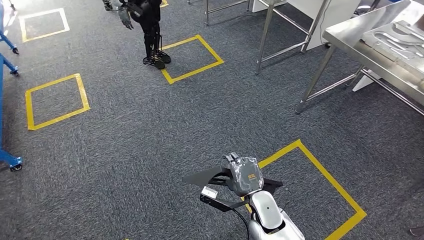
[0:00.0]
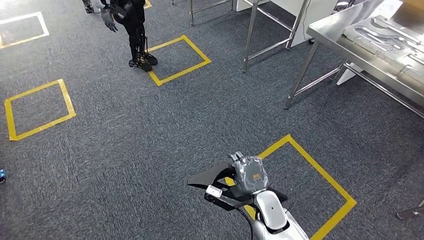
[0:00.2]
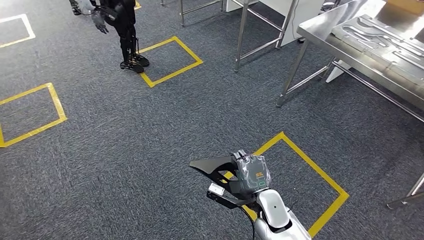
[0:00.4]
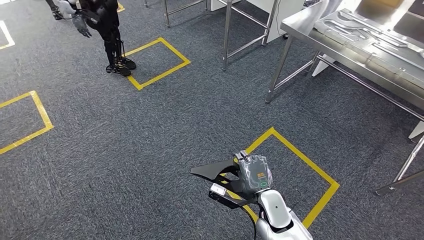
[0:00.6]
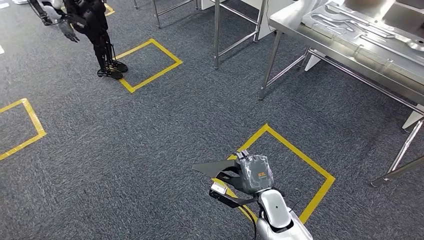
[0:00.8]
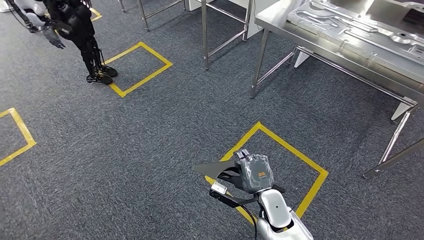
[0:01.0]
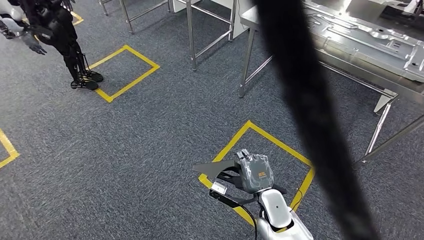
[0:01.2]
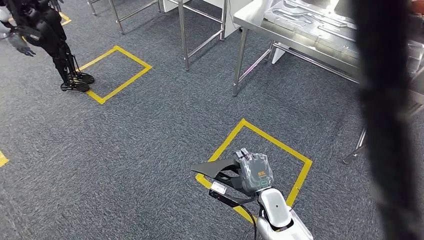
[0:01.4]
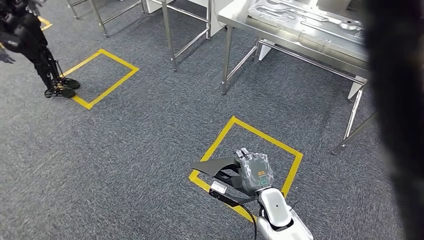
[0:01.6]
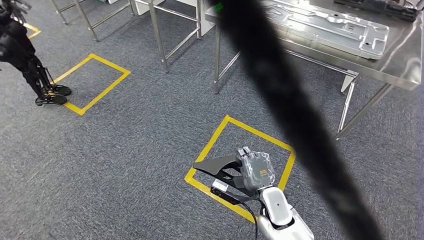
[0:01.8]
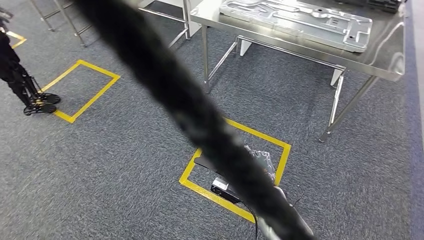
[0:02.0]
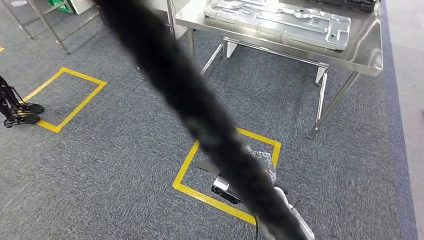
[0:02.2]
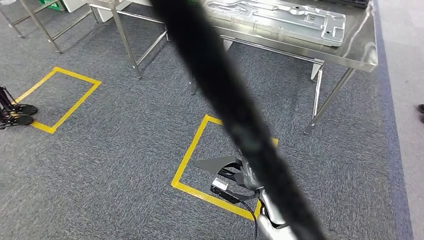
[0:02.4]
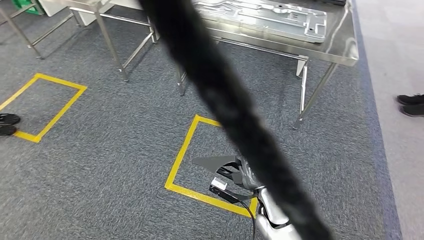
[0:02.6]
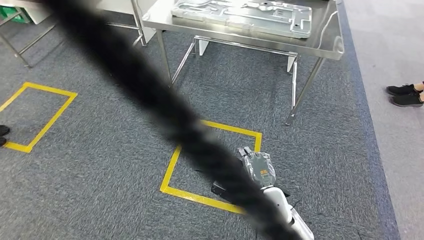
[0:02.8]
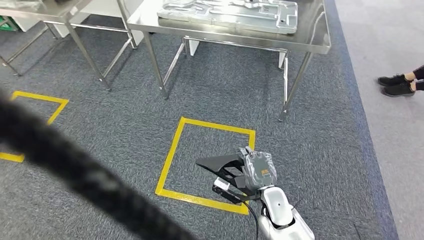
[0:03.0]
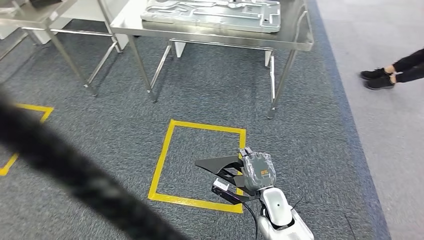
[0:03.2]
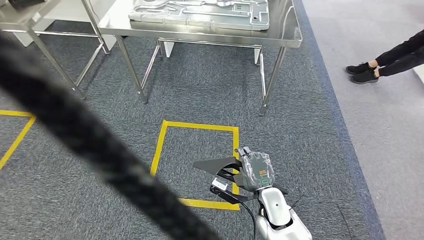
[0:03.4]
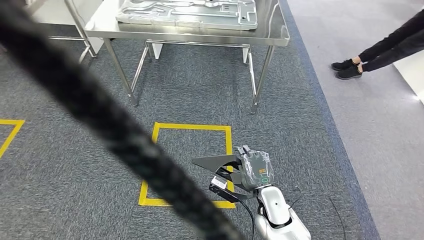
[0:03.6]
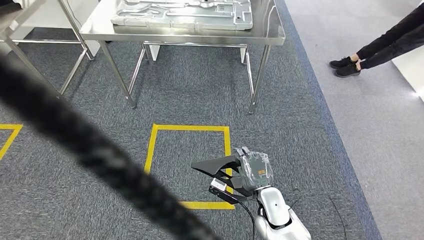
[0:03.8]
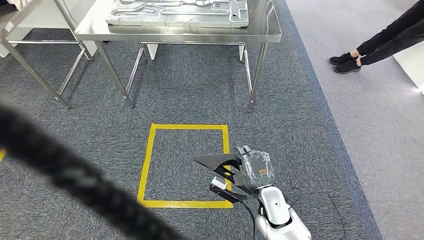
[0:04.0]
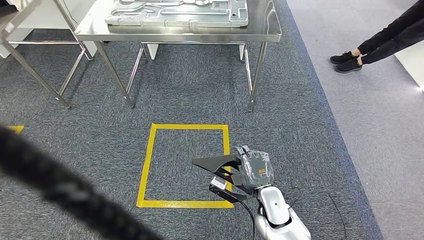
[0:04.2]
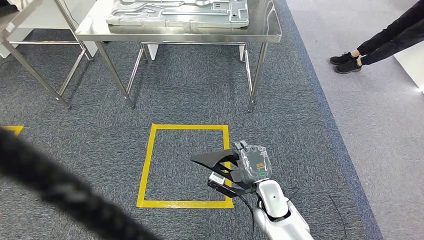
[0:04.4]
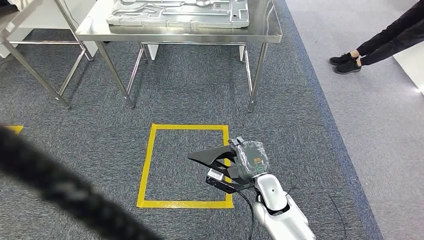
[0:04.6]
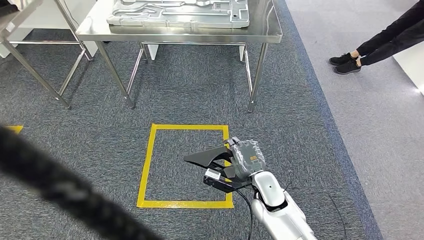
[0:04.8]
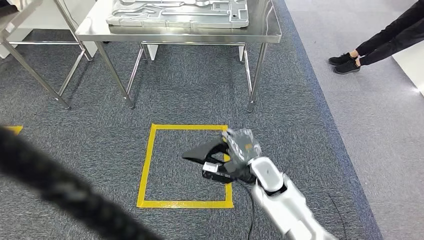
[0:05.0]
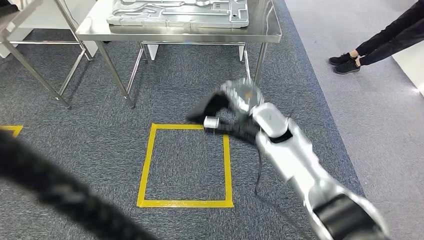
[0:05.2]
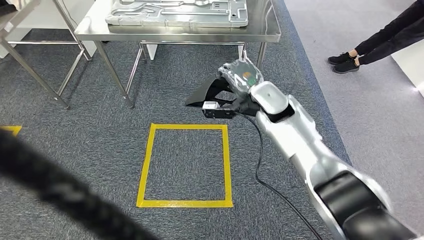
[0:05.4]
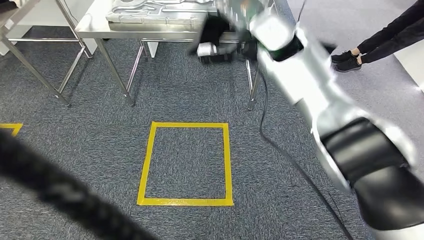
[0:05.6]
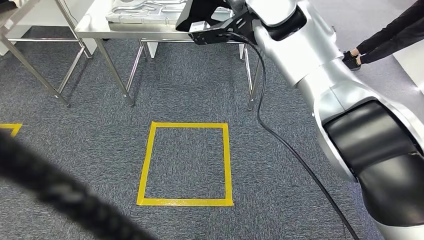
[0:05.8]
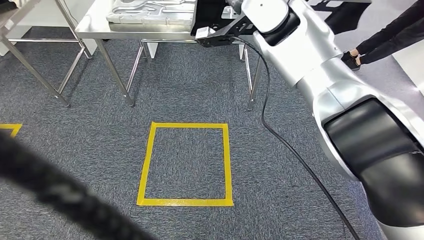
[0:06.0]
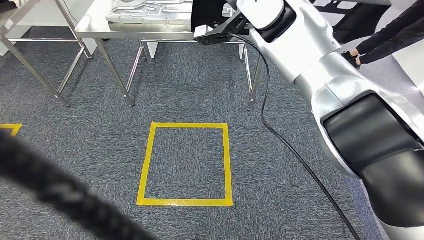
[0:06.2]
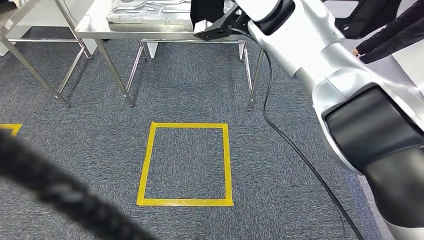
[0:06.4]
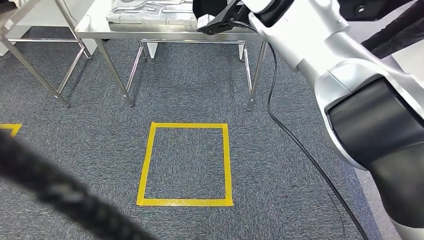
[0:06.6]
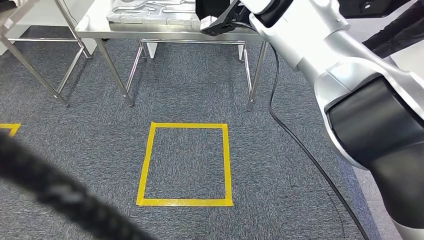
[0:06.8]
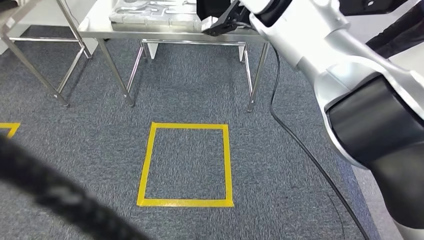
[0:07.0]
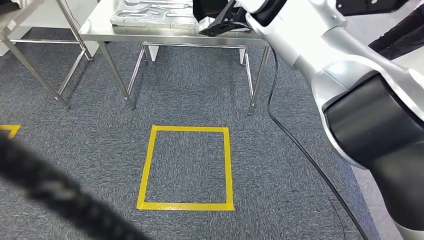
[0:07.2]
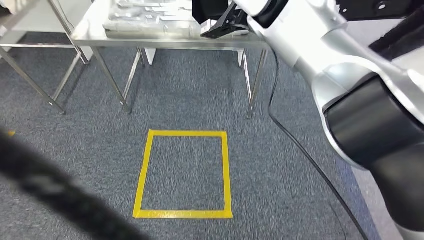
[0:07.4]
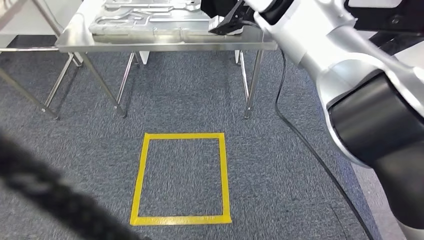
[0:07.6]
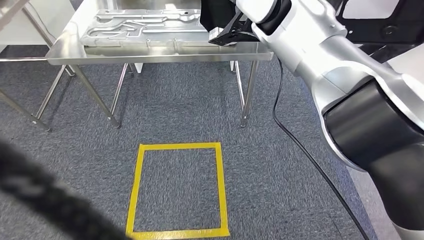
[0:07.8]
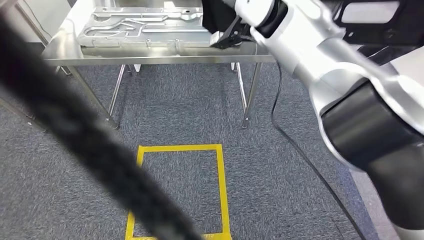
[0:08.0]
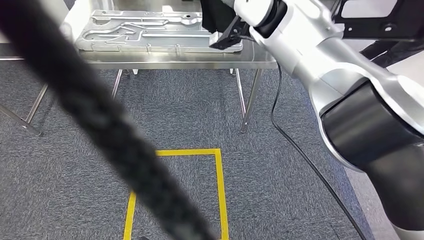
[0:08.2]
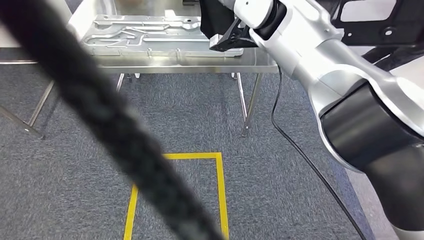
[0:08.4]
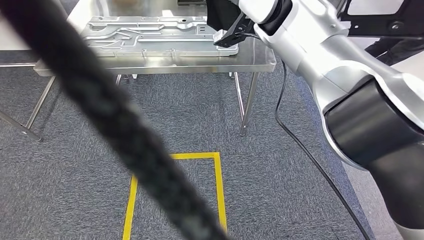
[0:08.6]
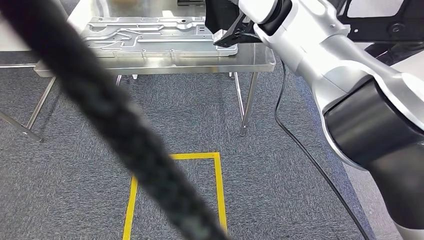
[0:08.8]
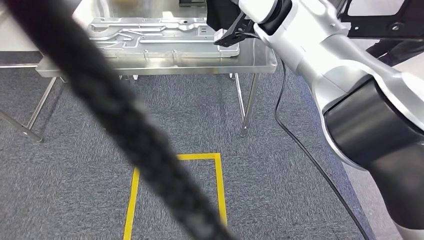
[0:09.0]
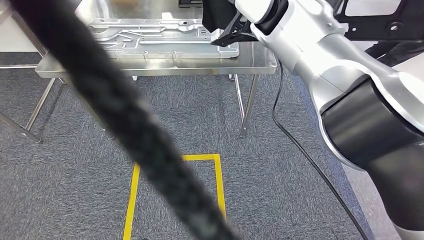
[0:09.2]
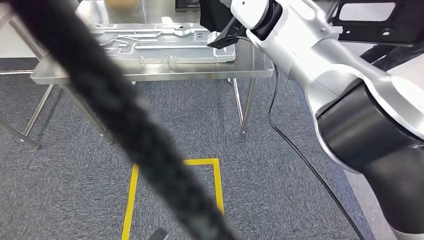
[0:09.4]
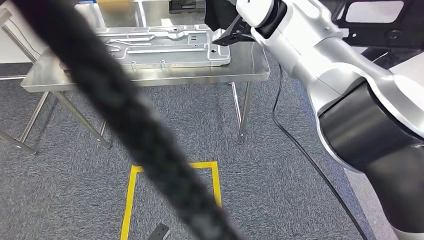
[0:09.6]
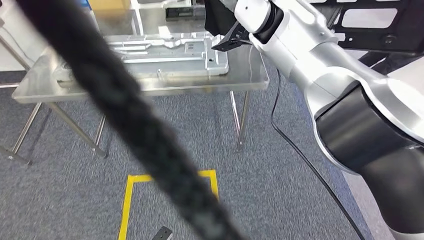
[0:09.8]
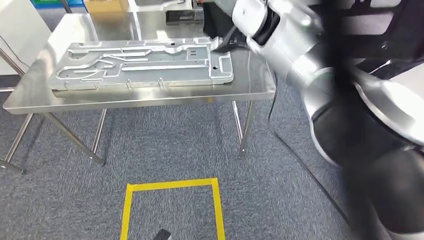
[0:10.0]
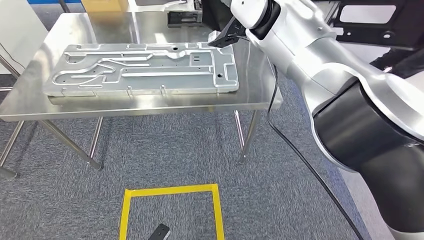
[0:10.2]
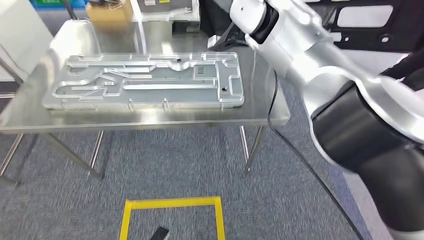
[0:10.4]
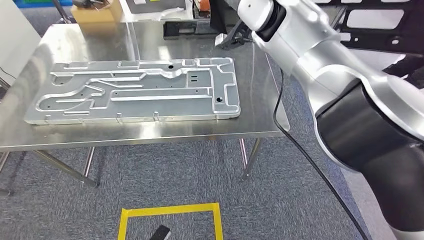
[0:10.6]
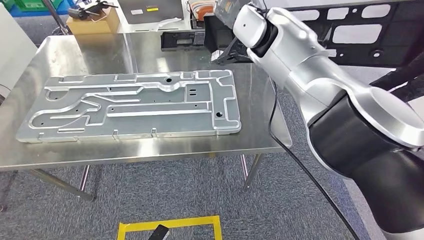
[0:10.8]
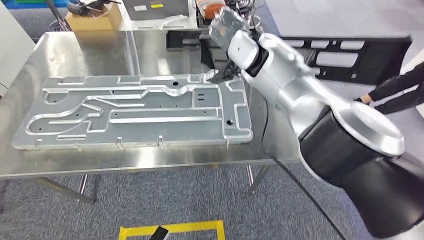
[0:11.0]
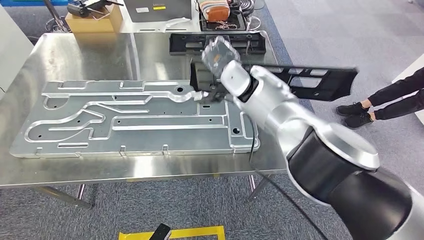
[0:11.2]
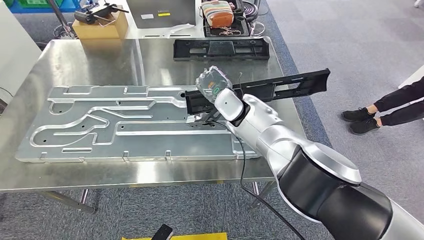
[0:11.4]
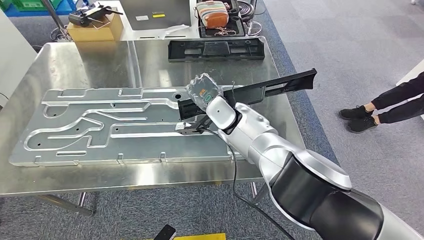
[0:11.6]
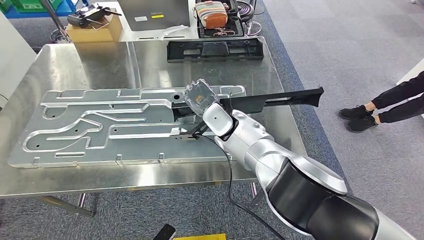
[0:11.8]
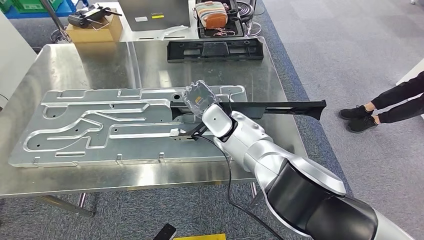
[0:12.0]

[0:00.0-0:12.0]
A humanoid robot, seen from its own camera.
Step, 0:01.0 to 0:11.6: Move the large material to the workbench.

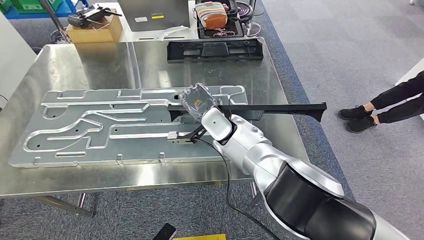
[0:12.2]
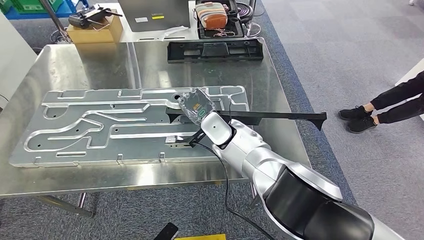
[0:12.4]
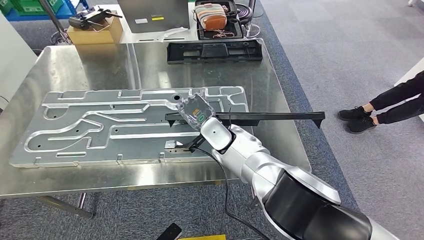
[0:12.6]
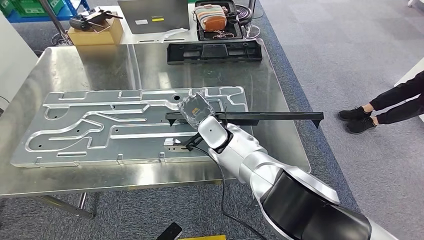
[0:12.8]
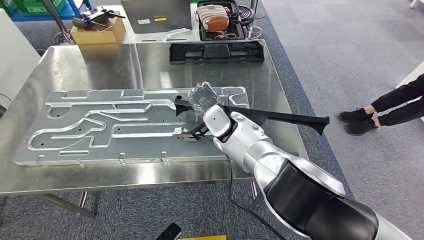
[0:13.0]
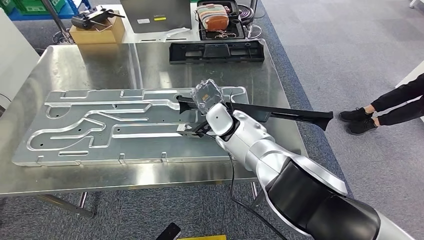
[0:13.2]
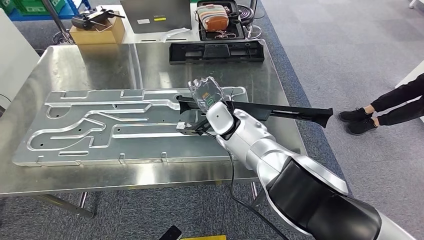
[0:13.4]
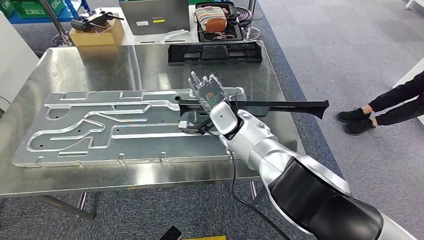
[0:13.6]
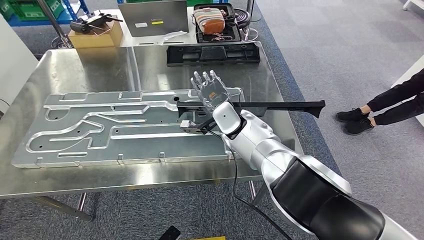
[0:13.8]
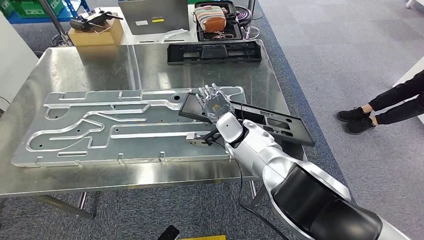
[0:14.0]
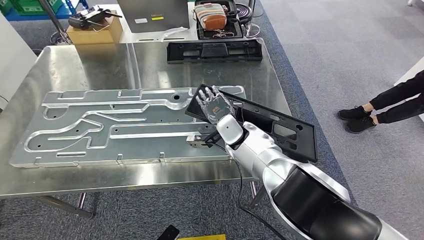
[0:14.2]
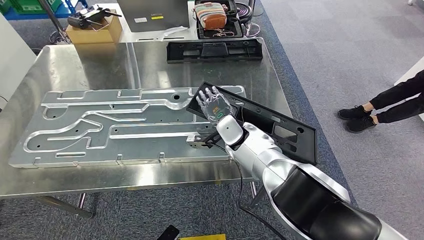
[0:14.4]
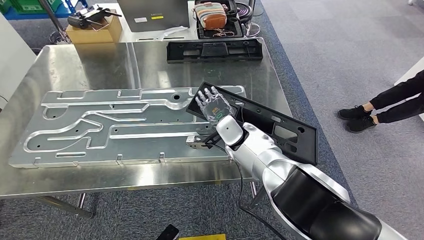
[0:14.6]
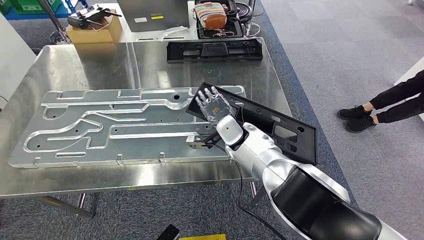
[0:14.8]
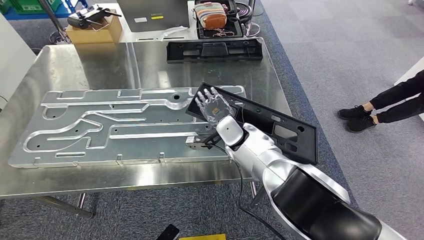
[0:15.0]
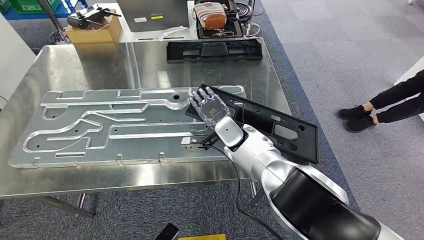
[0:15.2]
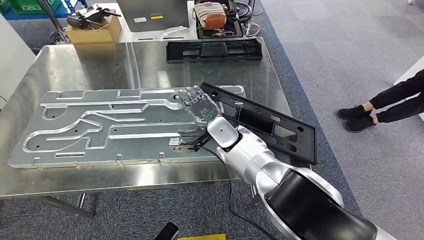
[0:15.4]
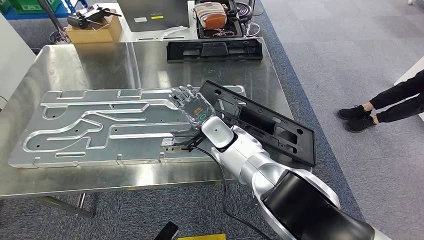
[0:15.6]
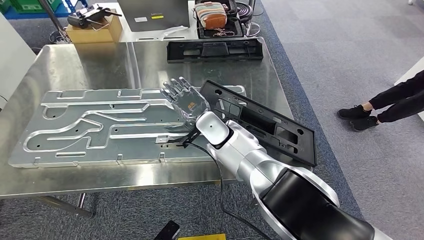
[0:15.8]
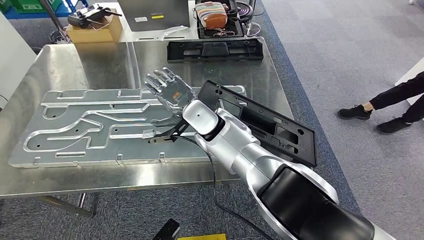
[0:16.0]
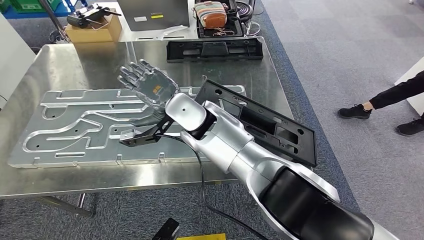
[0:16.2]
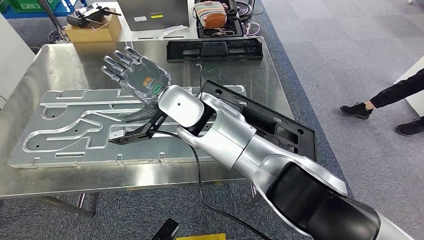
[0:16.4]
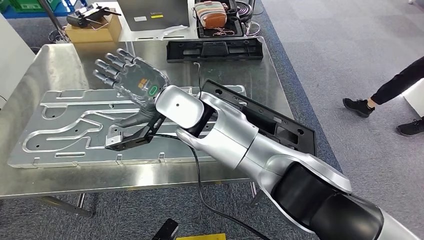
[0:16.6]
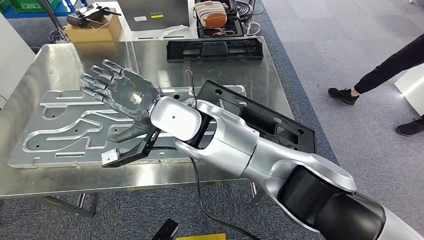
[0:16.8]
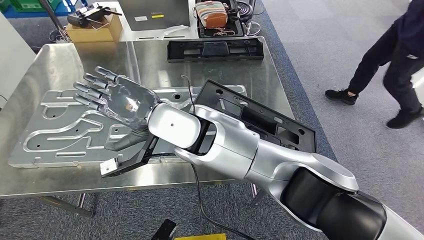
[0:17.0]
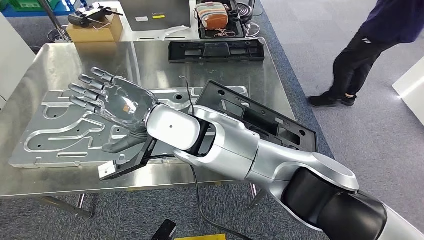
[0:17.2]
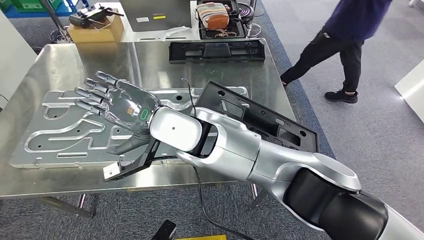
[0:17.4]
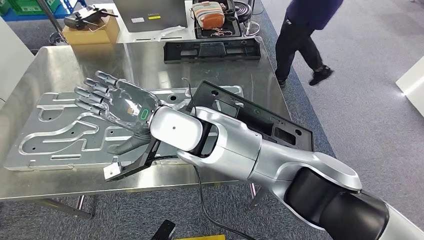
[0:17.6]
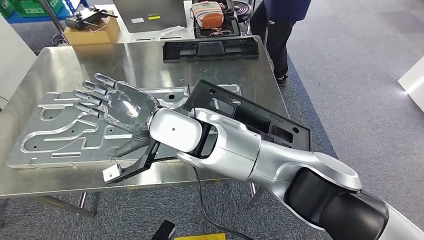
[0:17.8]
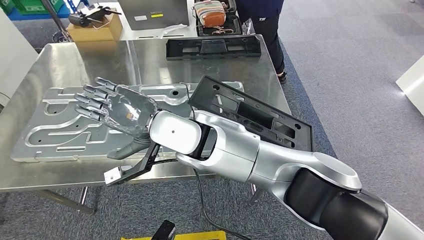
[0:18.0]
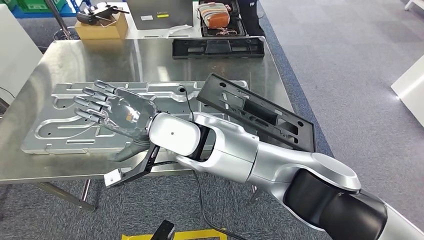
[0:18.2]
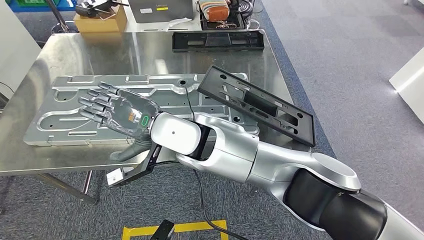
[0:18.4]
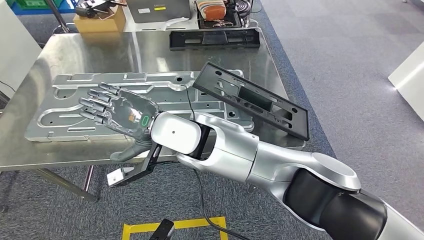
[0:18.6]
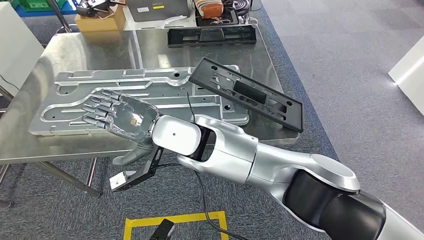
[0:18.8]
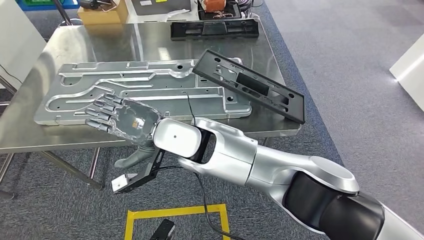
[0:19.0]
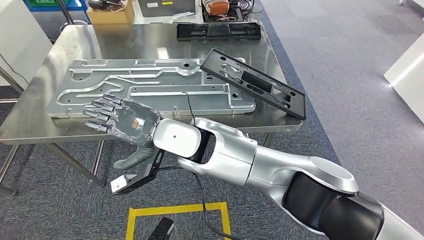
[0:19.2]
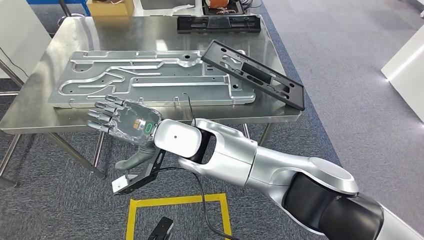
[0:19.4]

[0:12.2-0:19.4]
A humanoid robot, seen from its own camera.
Step, 0:13.8 to 0:19.2: Insert the large material into the corresponding slot on the workbench.
